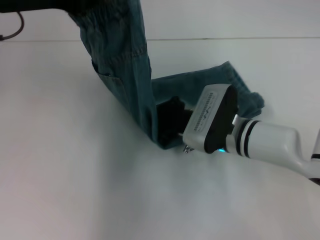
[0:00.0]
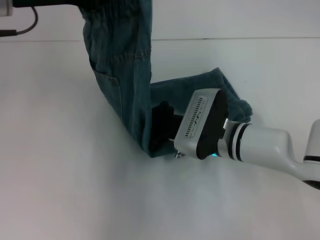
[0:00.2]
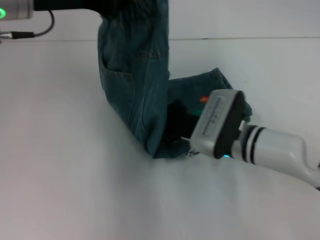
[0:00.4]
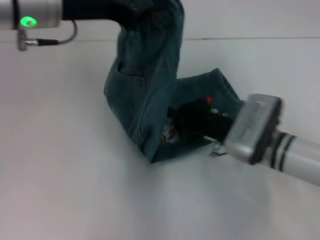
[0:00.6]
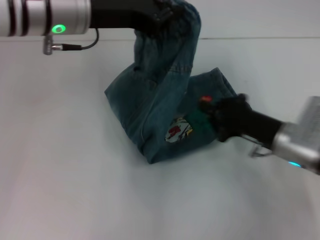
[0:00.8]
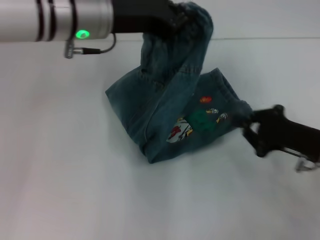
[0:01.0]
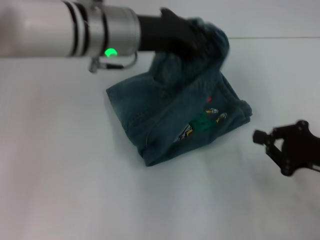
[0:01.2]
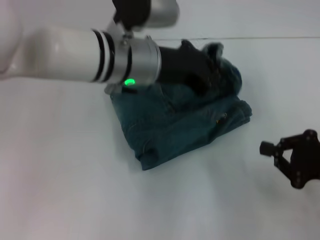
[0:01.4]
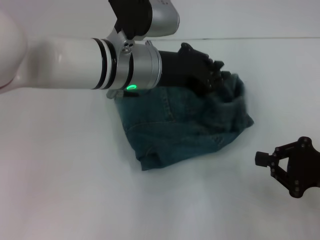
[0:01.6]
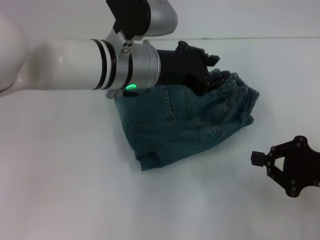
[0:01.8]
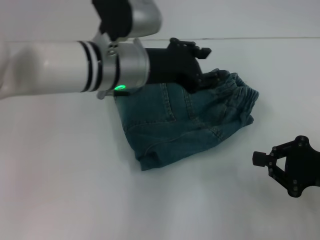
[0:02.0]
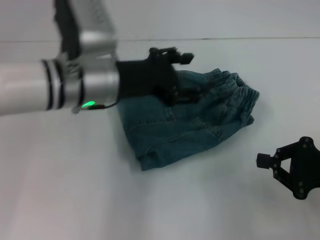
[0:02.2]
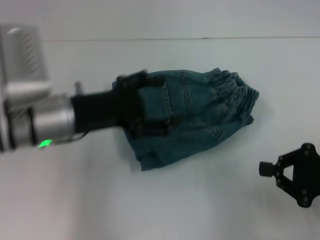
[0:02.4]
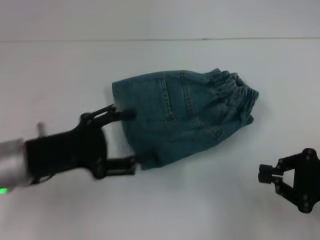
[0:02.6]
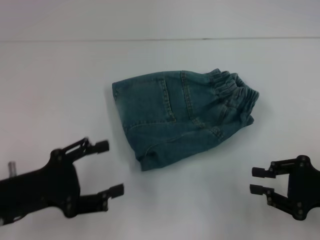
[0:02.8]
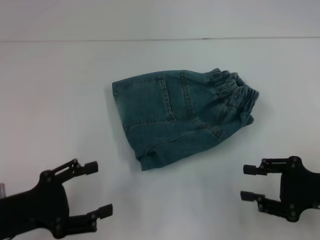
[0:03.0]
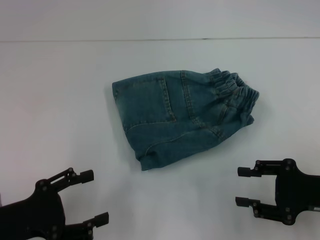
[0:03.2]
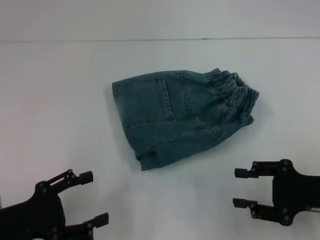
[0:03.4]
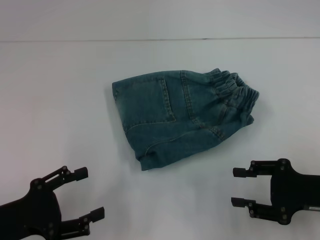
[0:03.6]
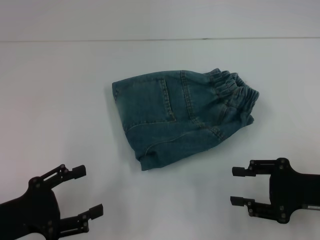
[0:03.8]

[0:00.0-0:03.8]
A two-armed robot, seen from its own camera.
Step, 0.6 to 1.6 s: Fold to the right with your left hand.
0.0 to 1.2 s: The right gripper moves to the right and backward, roughly 20 cm, while the left gripper heads to the right and downward, covering approximately 15 cm.
1.2 to 2.6 s: The left gripper travels to the left, backward and downward by roughly 20 cm, and opens its fingers.
2.6 to 3.8 s: The right gripper opens, while the left gripper heads backward and to the left, covering approximately 10 cm.

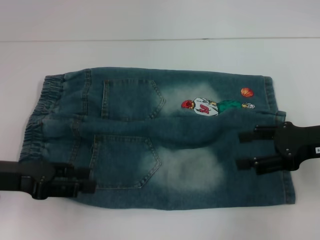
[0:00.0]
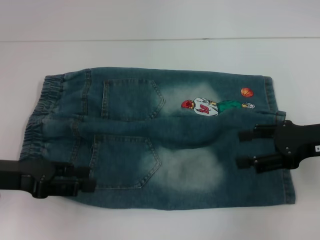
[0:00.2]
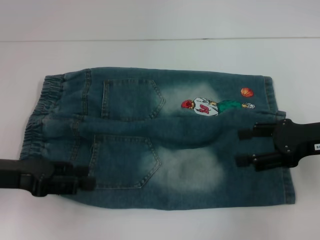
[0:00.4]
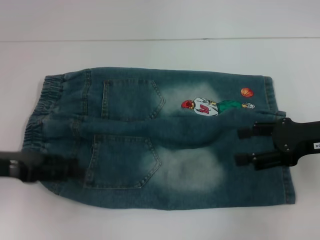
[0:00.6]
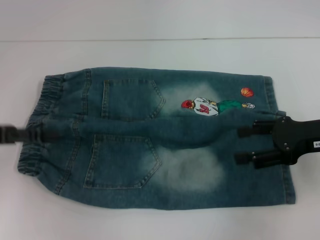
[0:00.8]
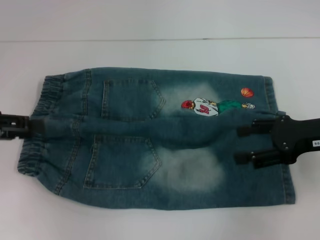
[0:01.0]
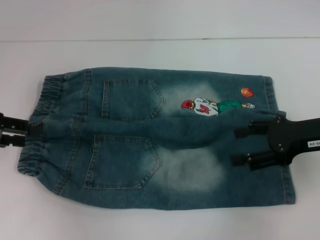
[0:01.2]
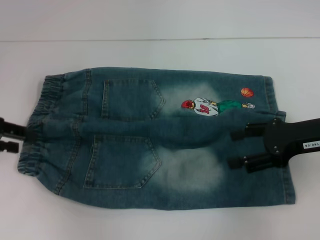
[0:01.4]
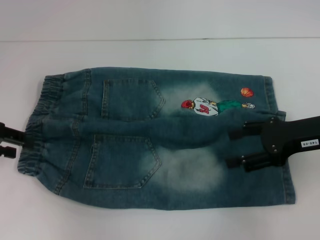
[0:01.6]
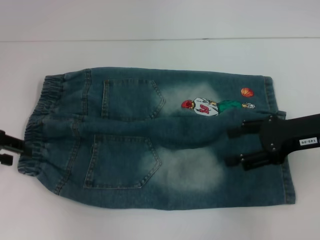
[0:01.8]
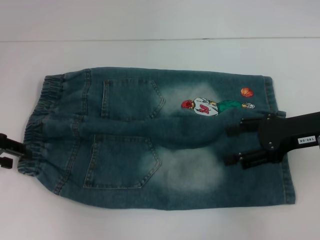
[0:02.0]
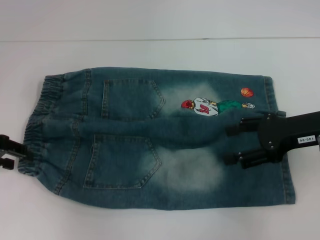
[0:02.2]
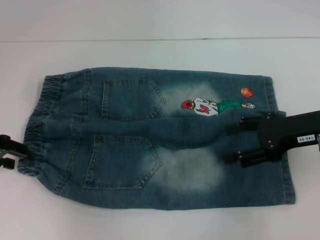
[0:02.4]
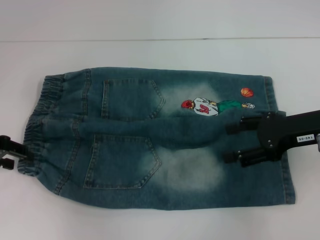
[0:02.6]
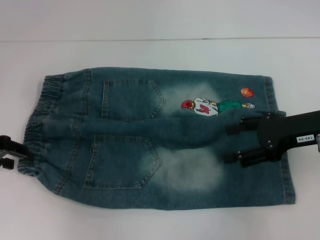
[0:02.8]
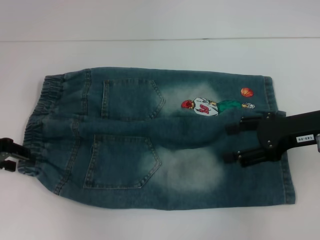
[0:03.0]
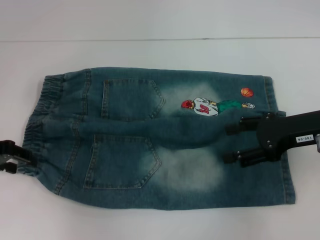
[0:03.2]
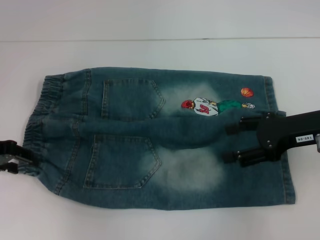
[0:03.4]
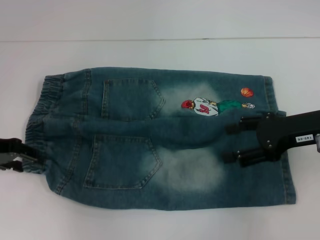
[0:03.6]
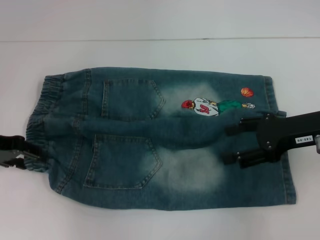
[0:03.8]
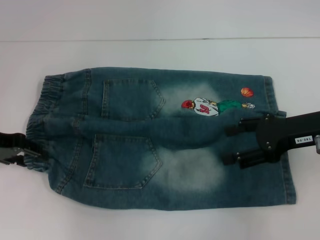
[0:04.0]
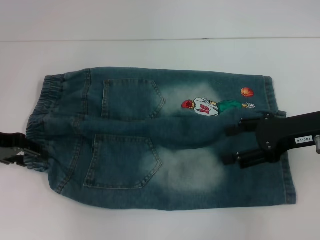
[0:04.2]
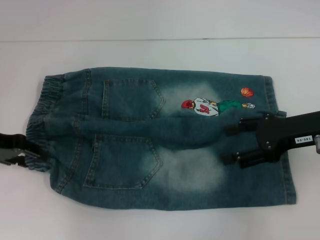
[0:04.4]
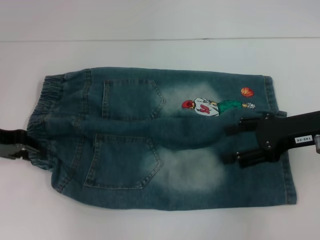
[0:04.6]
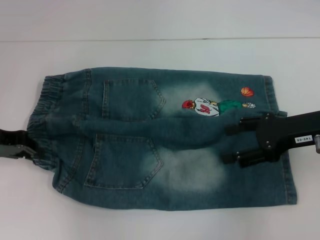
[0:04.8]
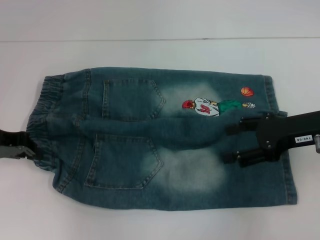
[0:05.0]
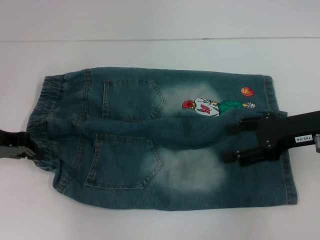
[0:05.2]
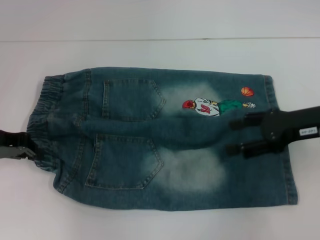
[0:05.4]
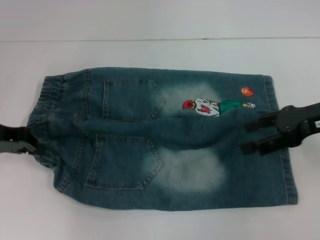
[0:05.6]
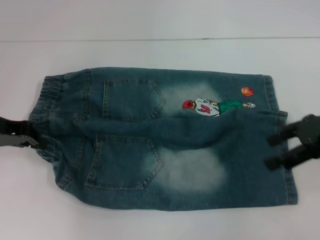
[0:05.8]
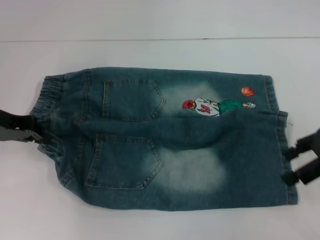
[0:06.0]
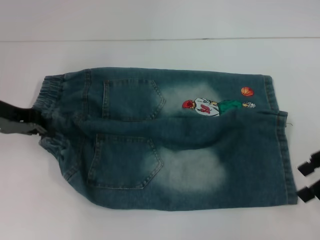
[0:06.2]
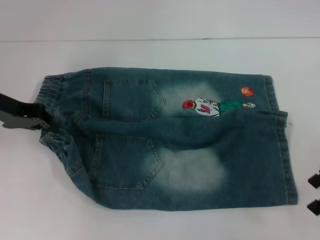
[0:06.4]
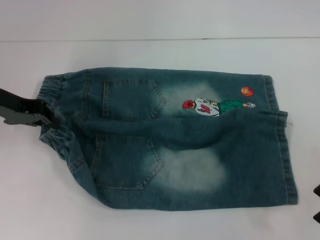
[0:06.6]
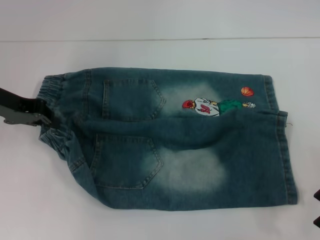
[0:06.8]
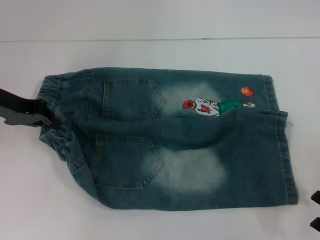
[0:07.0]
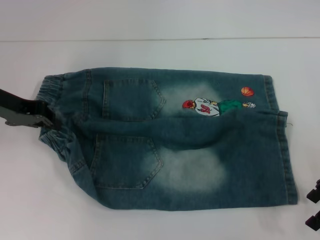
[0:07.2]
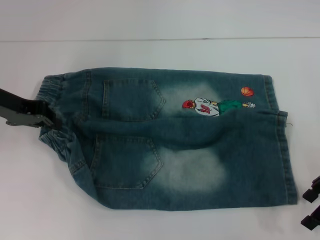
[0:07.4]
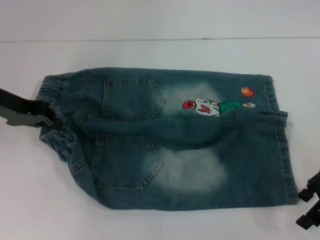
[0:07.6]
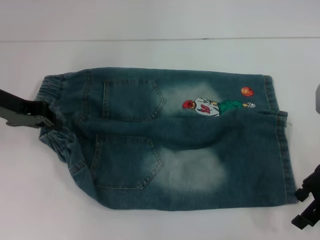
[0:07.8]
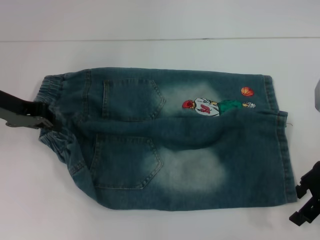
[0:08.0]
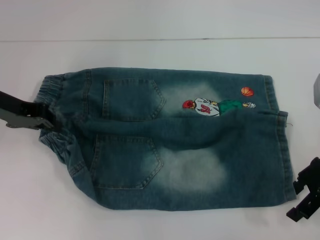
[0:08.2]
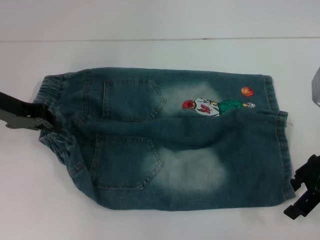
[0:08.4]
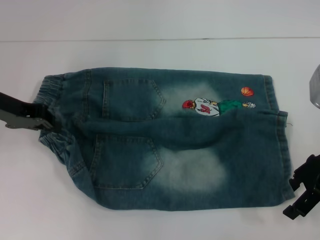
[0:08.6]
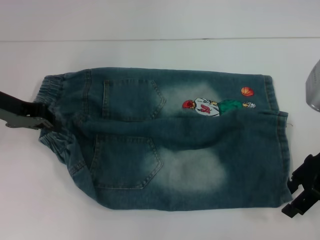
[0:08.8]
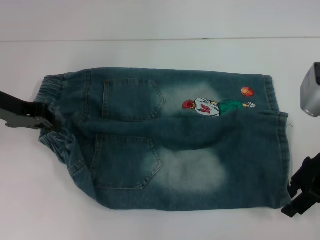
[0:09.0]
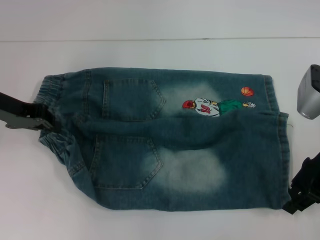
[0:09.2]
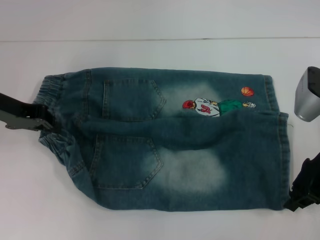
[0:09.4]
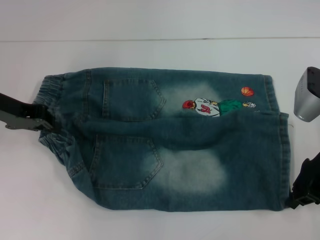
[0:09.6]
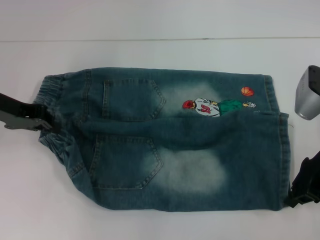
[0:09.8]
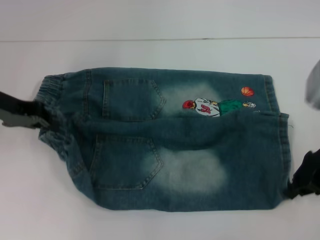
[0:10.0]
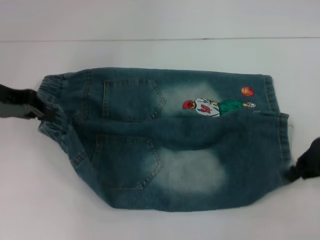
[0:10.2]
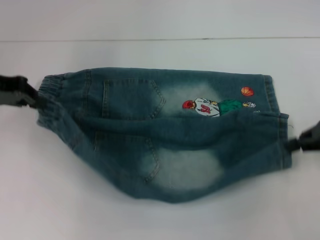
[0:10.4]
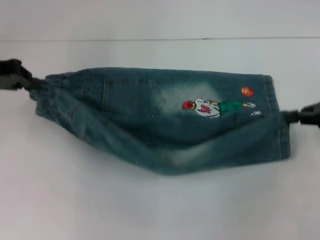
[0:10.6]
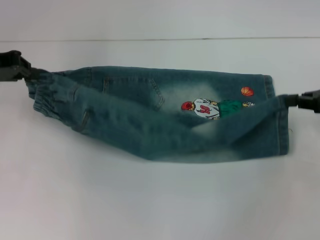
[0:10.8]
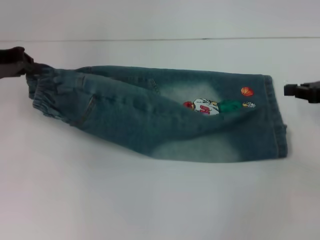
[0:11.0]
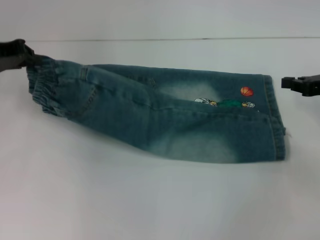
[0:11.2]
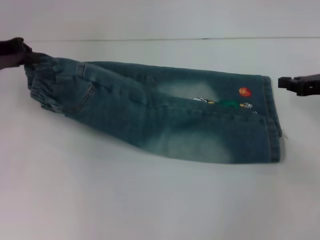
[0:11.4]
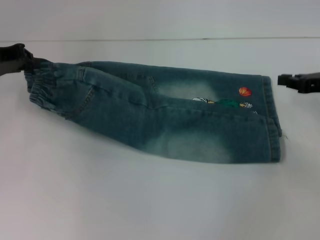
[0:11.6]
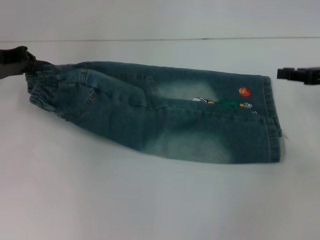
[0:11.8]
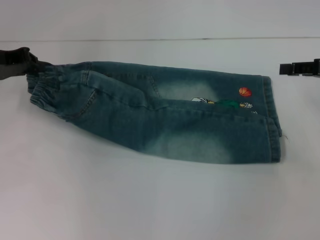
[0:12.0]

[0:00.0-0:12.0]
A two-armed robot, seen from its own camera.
Step, 0.0 to 4.4 s: Hold the lower left waistband with your left hand.
Step, 4.8 to 9.6 s: Grab the lower right pant leg with your right hand.
0.0 to 1.6 s: The left gripper is displaced forward and to the left by approximately 10 cm.
1.6 to 4.4 s: The grippers move only a little.
4.4 to 6.0 s: The left gripper closes. The right gripper changes place by roughly 5 cm.
7.6 to 9.0 s: The grippers stay close to where they were, moving slightly.
9.0 to 10.4 s: The right gripper is displaced to the right by about 5 cm, and closes up.

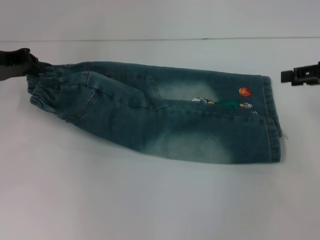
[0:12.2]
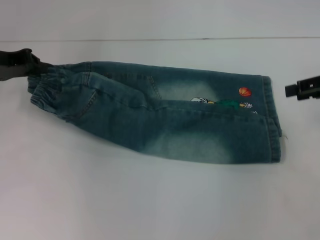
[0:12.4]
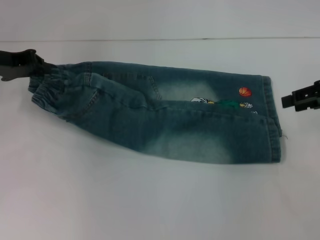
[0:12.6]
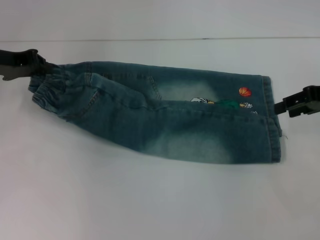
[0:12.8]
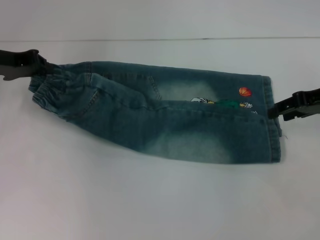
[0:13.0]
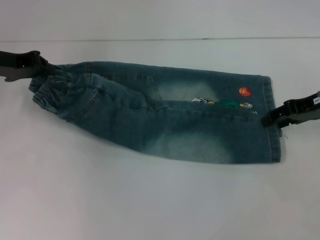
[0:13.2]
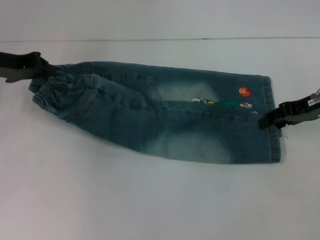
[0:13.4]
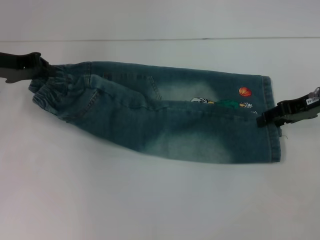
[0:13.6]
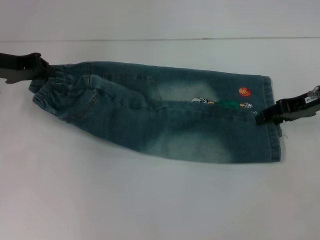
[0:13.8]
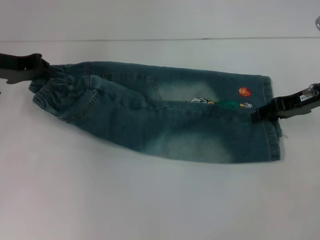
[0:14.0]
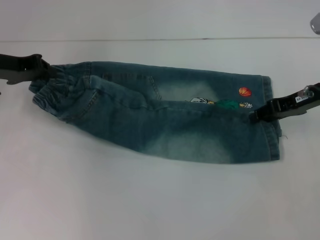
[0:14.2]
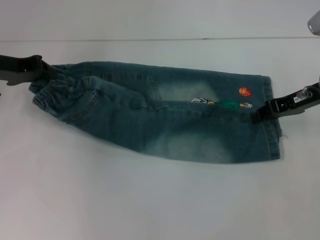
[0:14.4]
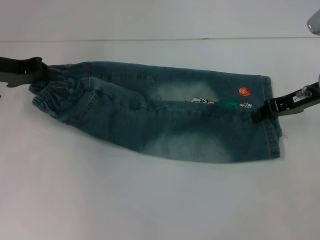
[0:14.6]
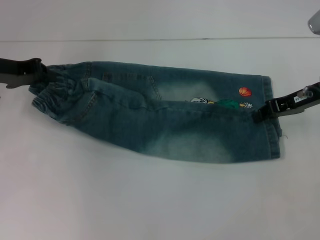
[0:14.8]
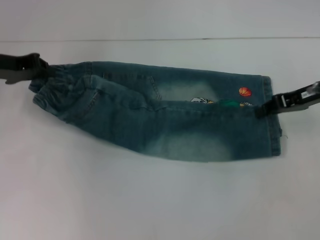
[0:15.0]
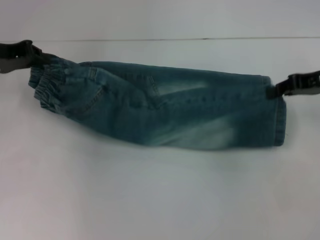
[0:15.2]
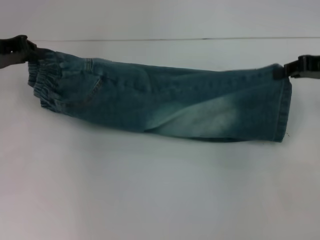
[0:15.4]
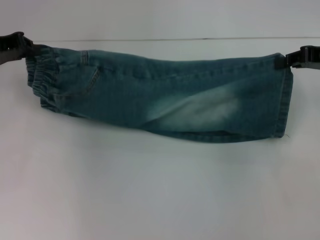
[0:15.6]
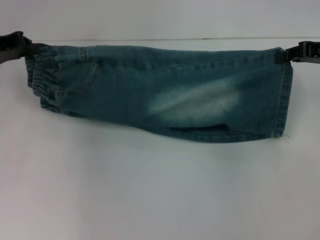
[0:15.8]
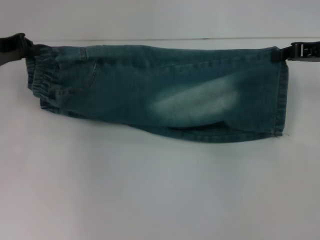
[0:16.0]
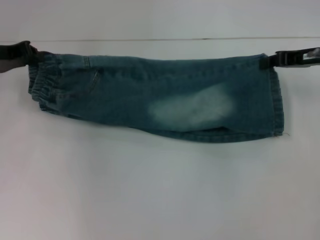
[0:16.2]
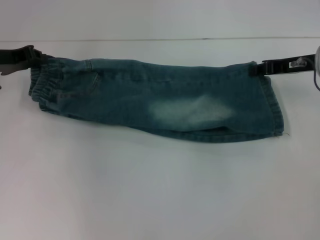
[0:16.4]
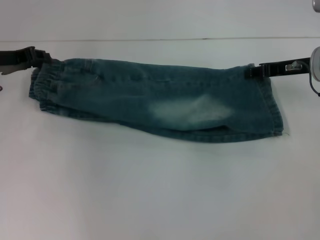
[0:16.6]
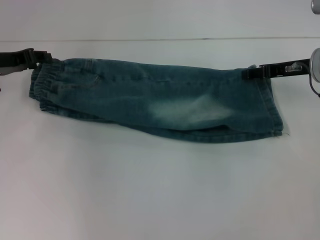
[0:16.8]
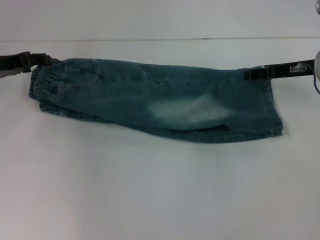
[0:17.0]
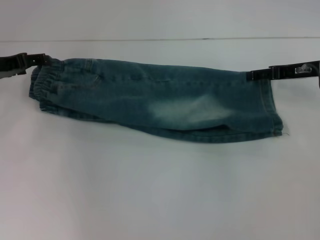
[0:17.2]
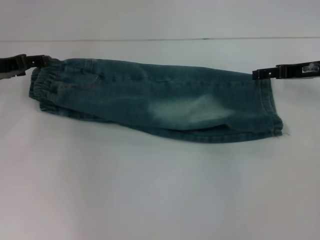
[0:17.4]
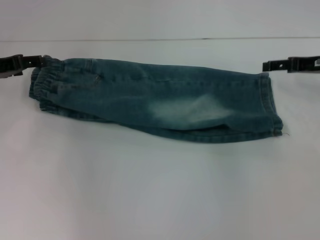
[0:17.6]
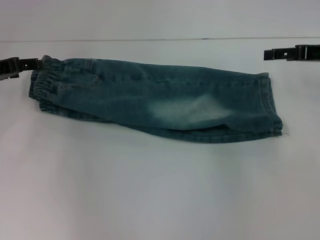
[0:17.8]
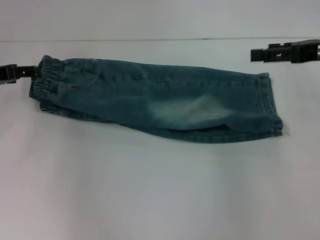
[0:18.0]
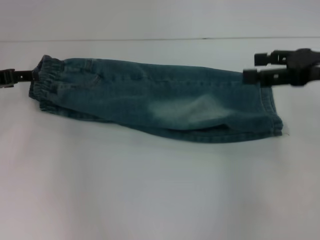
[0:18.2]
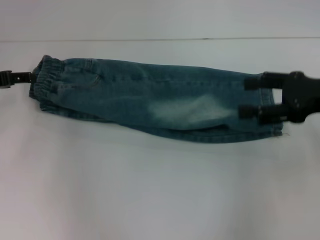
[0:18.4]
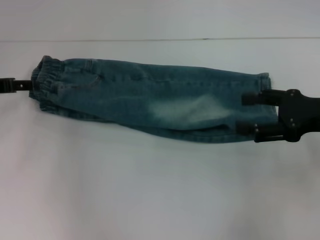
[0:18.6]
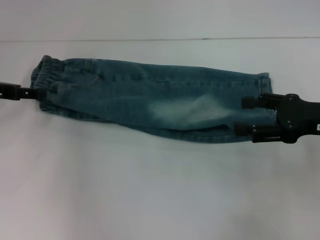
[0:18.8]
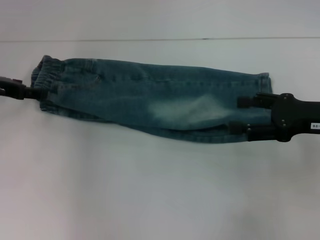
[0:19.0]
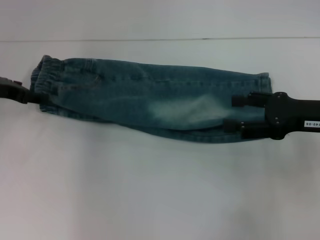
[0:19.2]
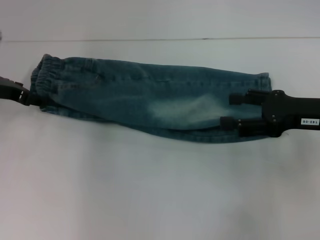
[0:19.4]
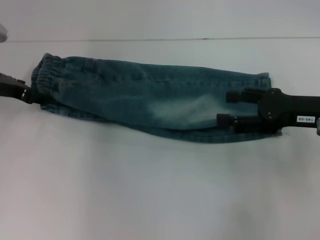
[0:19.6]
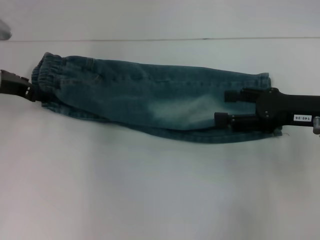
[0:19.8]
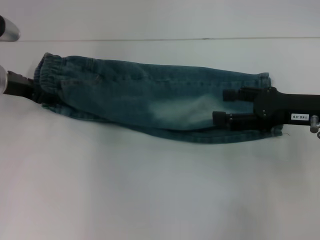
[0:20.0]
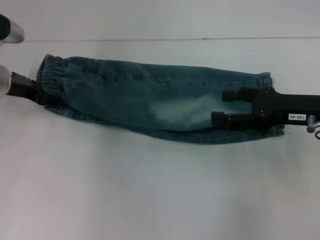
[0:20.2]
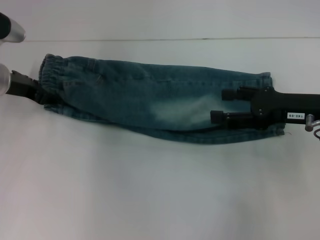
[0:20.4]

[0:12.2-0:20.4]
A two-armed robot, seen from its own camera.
Step, 12.2 to 17.2 s: Fold upward with your right hand.
12.2 to 13.8 s: The right gripper shifts approximately 5 cm to the left.
13.8 to 15.4 s: The right gripper moves some 5 cm, and closes.
15.4 to 17.2 s: The right gripper moves some 5 cm, and opens up. The left gripper opens its fingers.
17.2 to 18.8 s: The right gripper goes some 10 cm backward.
18.8 to 20.4 s: The left gripper is displaced to the right by some 5 cm.
